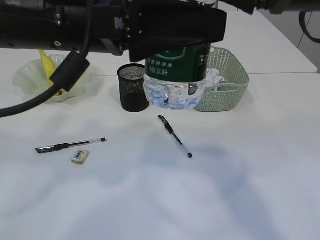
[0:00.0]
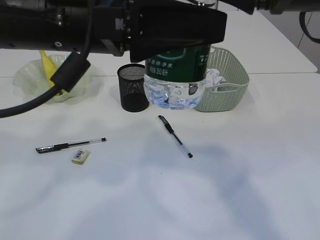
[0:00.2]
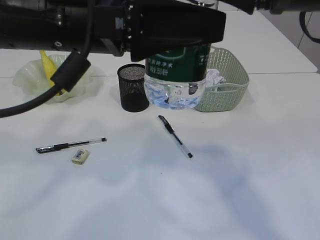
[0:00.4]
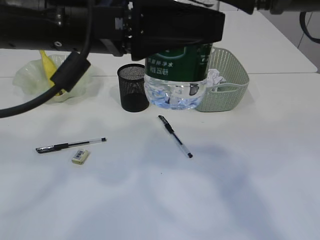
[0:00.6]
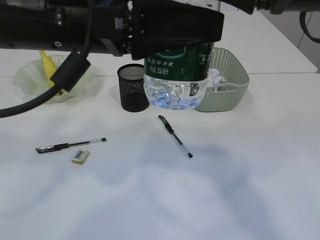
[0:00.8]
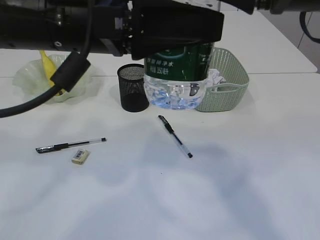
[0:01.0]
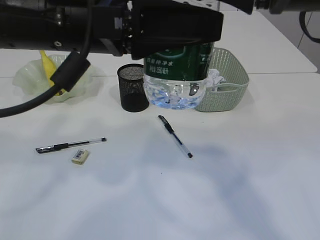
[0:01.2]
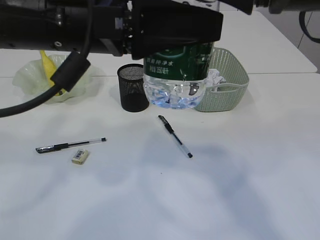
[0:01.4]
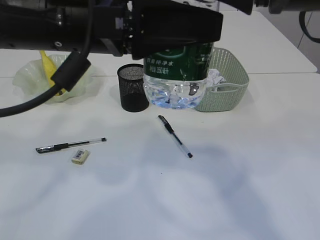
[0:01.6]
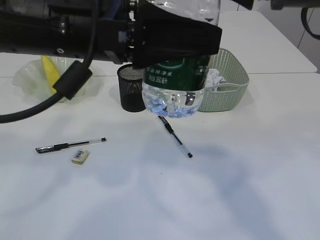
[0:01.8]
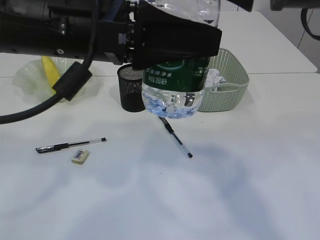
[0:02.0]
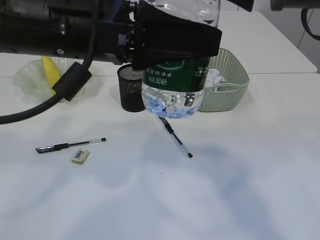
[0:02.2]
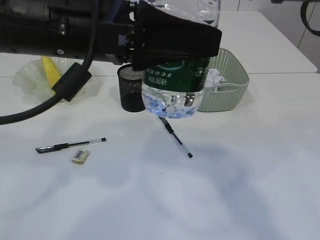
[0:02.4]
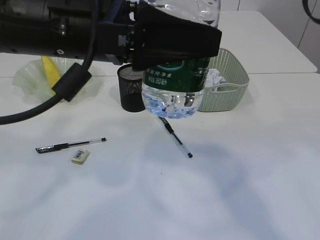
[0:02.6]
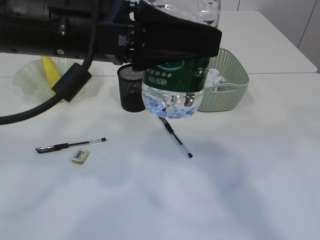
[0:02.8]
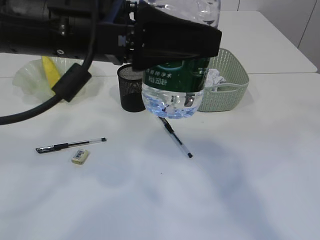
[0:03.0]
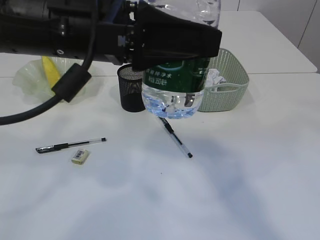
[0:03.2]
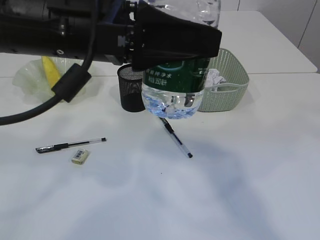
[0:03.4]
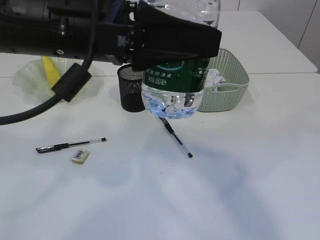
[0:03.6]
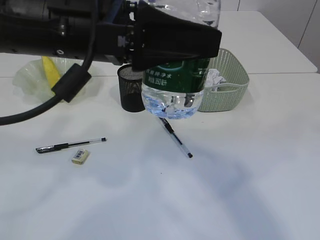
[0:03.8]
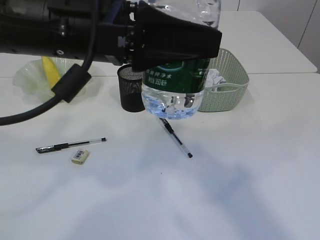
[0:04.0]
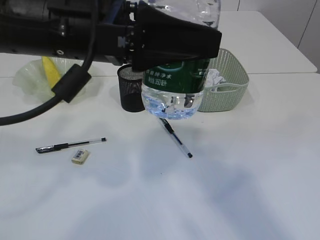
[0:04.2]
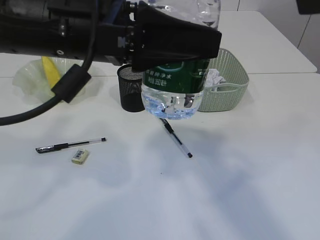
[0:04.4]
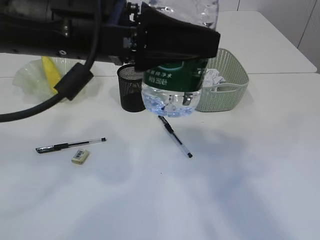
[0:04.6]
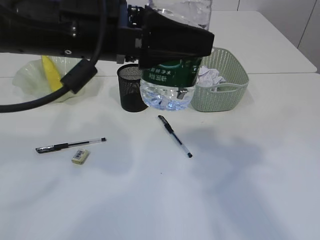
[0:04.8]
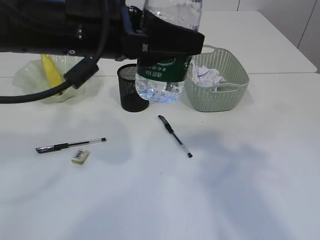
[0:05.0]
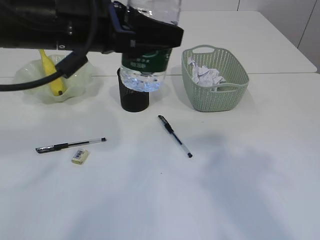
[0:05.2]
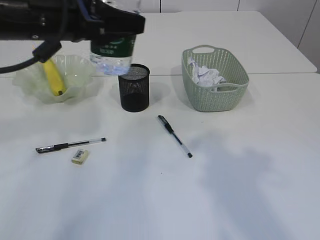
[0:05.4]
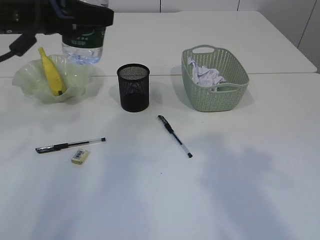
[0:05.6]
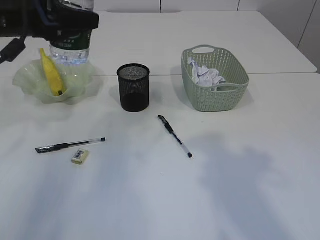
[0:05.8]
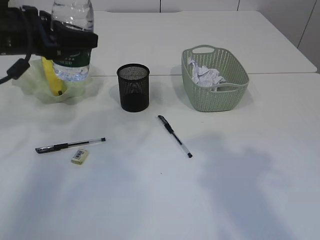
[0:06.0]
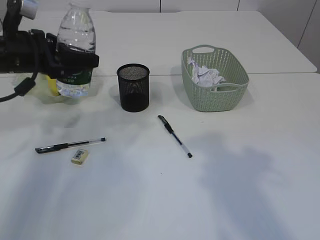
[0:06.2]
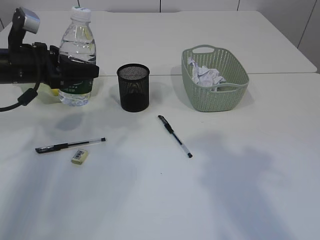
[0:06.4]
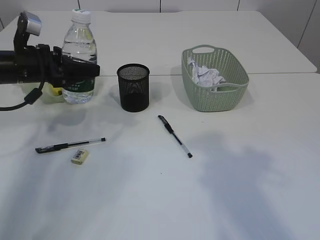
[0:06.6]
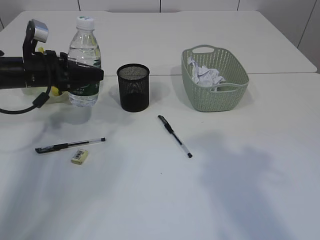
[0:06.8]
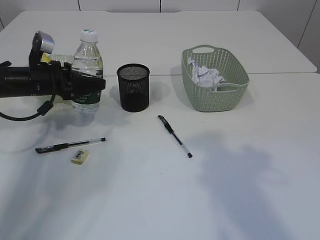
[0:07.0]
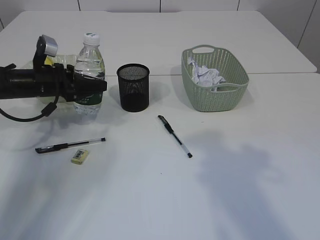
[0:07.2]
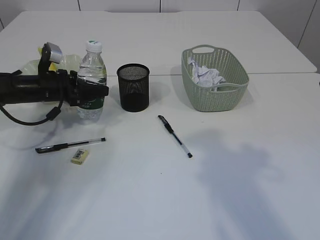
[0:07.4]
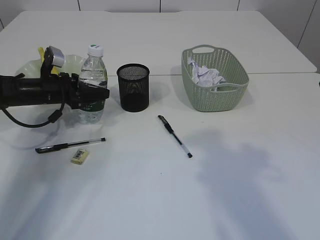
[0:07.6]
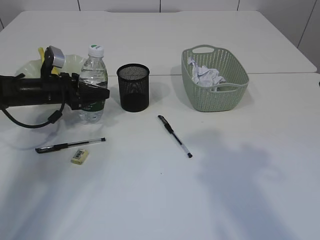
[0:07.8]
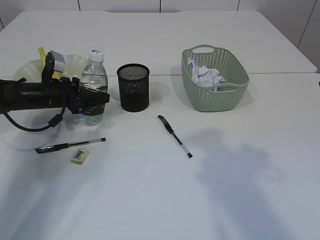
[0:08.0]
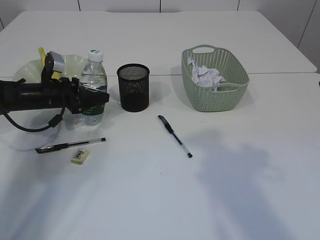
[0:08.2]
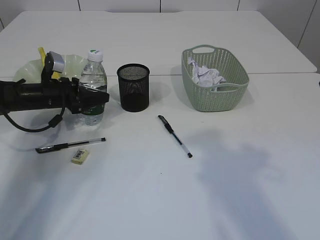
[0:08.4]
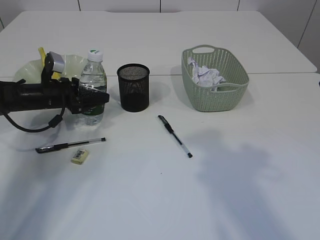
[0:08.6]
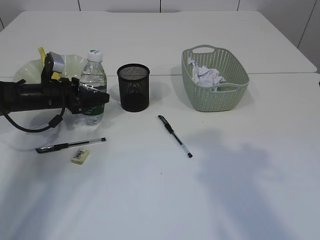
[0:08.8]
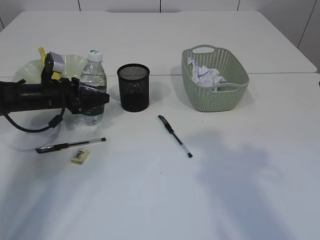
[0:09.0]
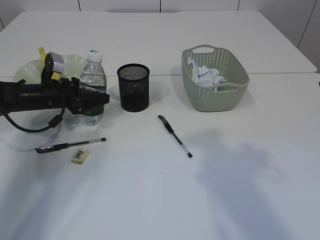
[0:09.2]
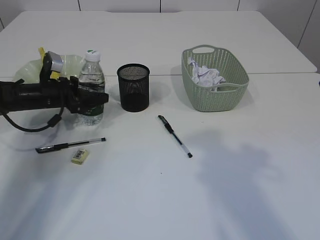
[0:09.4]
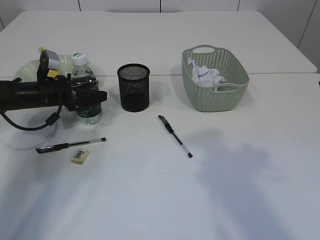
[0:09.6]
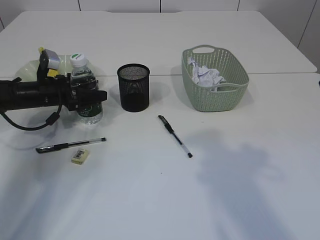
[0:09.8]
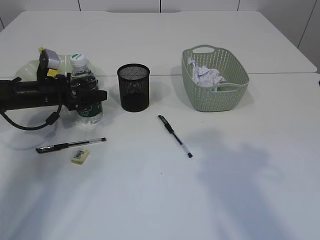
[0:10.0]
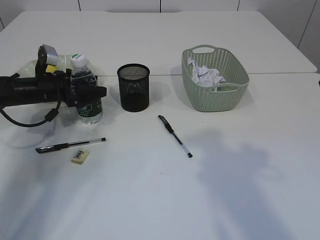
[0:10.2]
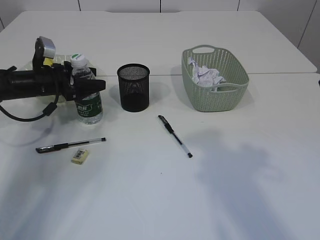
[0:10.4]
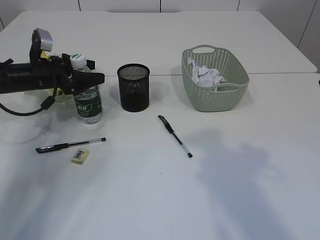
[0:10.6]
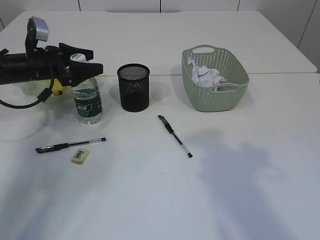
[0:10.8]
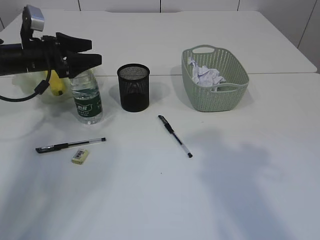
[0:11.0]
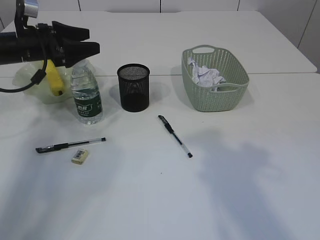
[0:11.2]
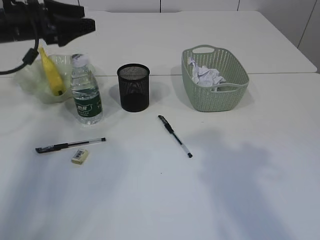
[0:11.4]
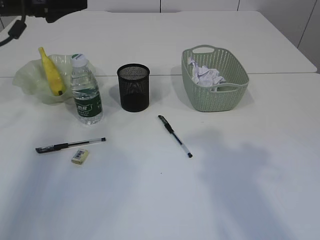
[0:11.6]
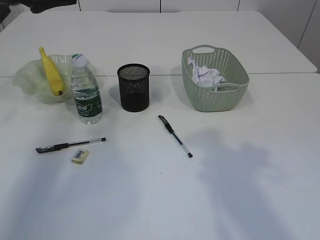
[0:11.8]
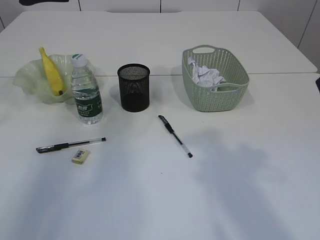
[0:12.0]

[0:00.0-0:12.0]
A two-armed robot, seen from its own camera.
Step, 0:05.2 to 0:11.2: Place the bottle.
0:00.0 to 0:01.6: The left gripper closes up.
0:01.6 to 0:03.0: There are only small adjustments of the grippers.
0:03.0 to 0:04.4: The right gripper is displaced to the right and backward by approximately 10 cm.
0:04.4 to 0:06.0: The right gripper goes some 5 cm downward. The left gripper shifts approximately 20 cm to the left and forward.
0:06.0 to 0:07.6: The left gripper shifts some 20 cm downward and forward.
0:07.6 to 0:10.4: The grippers stay close to where they were, moving slightly.
0:10.4 to 0:12.0: The left gripper travels upward by approximately 25 cm.

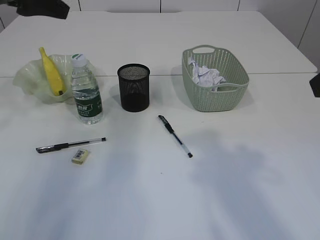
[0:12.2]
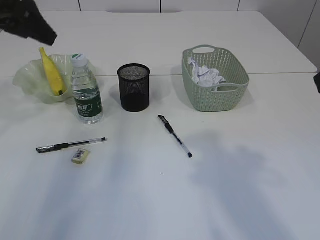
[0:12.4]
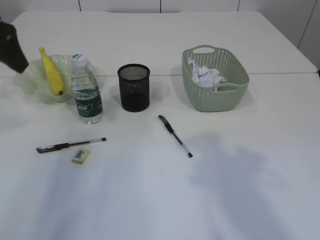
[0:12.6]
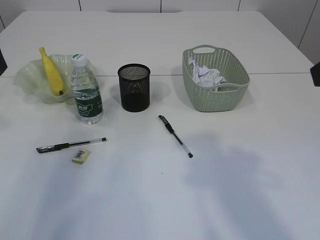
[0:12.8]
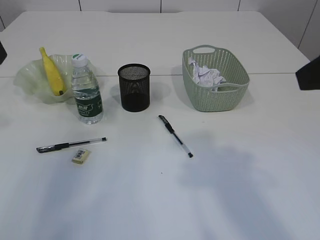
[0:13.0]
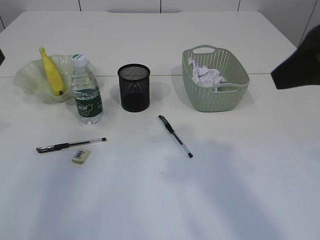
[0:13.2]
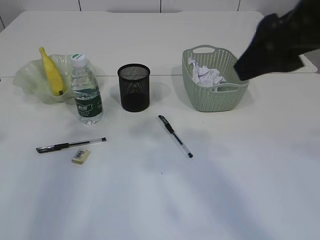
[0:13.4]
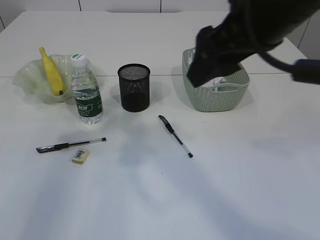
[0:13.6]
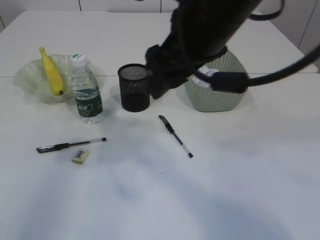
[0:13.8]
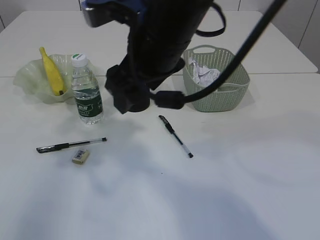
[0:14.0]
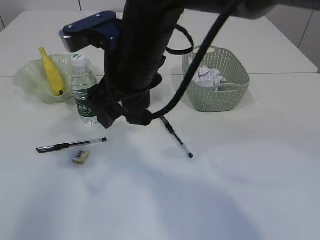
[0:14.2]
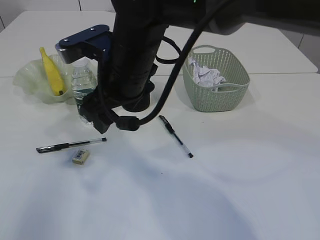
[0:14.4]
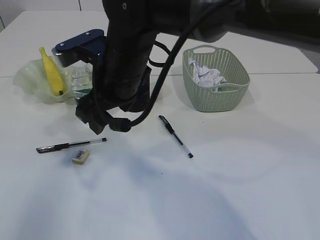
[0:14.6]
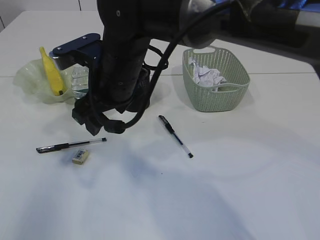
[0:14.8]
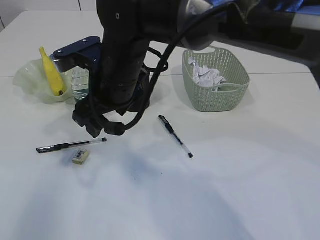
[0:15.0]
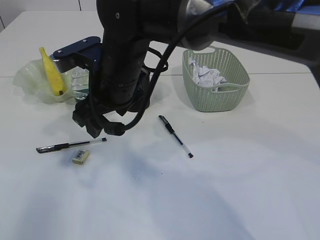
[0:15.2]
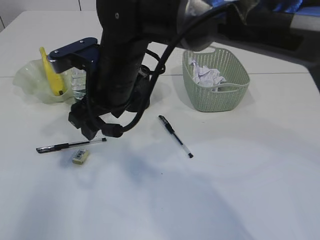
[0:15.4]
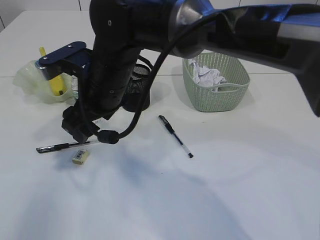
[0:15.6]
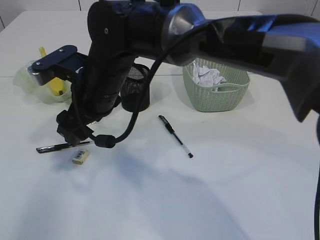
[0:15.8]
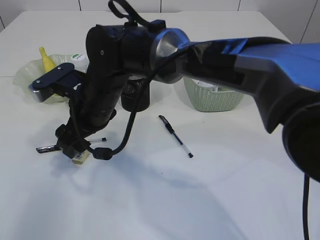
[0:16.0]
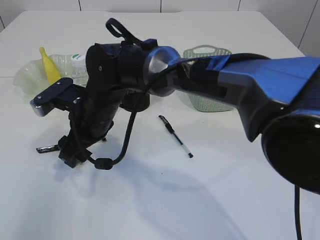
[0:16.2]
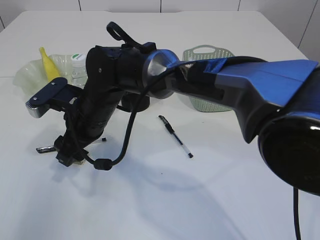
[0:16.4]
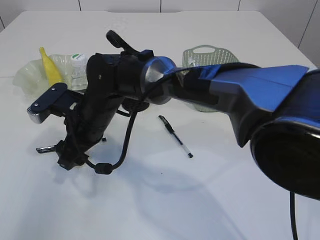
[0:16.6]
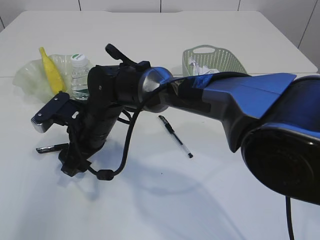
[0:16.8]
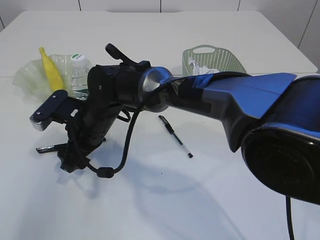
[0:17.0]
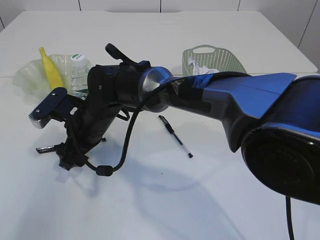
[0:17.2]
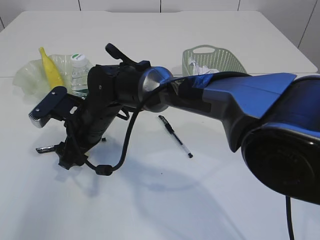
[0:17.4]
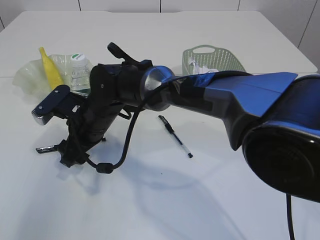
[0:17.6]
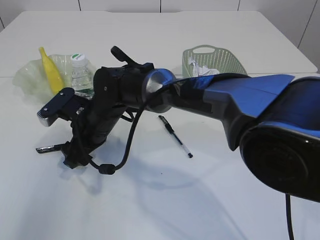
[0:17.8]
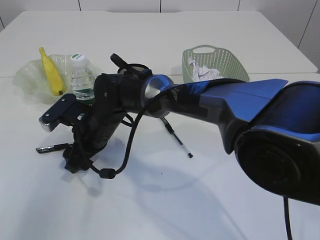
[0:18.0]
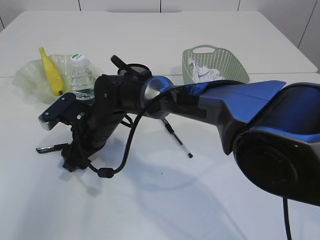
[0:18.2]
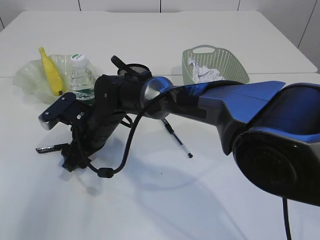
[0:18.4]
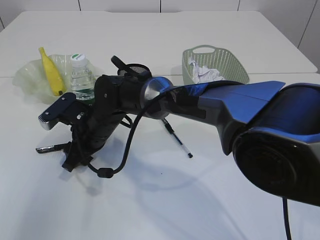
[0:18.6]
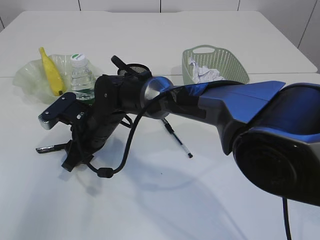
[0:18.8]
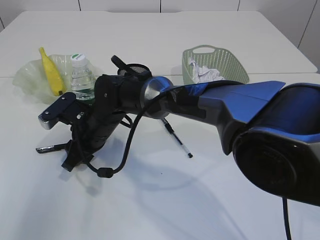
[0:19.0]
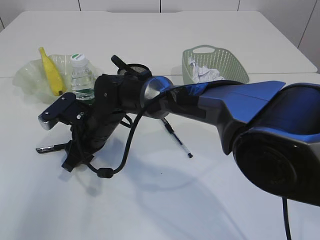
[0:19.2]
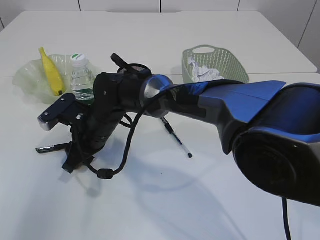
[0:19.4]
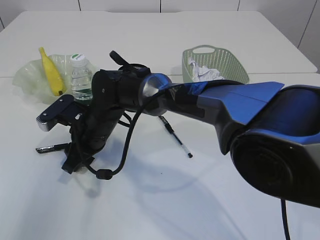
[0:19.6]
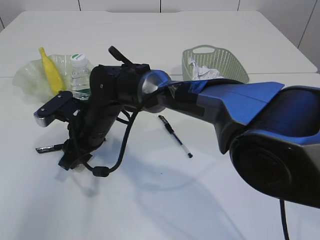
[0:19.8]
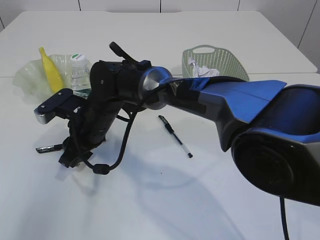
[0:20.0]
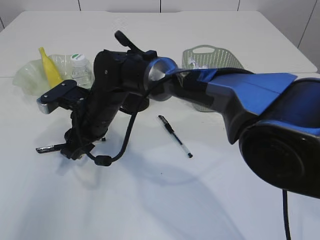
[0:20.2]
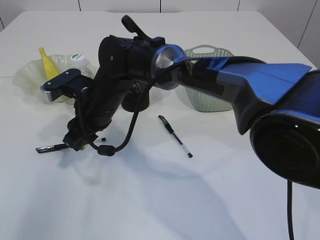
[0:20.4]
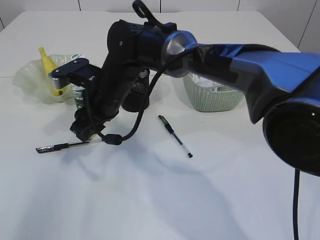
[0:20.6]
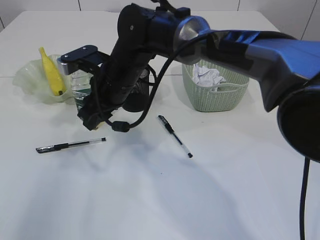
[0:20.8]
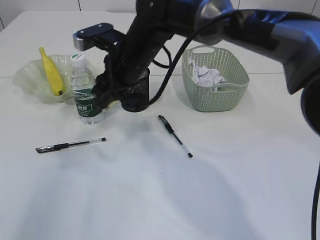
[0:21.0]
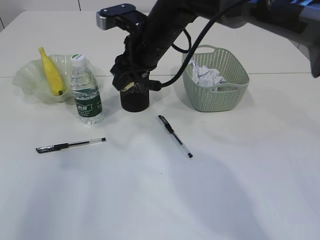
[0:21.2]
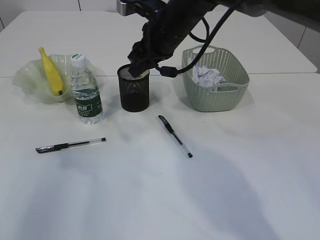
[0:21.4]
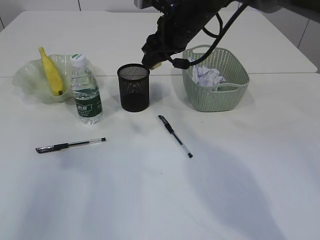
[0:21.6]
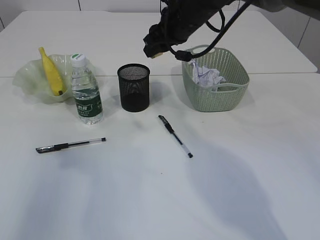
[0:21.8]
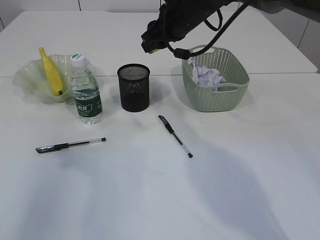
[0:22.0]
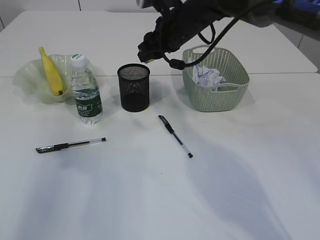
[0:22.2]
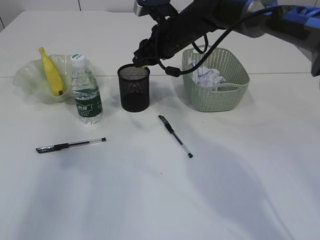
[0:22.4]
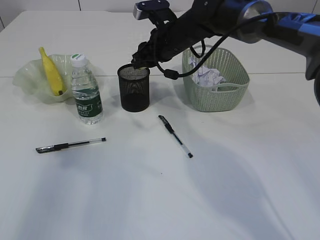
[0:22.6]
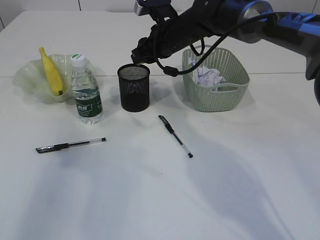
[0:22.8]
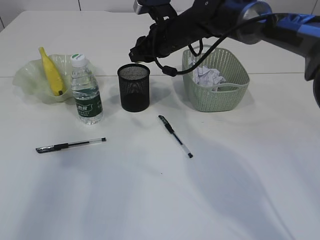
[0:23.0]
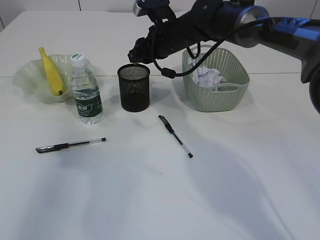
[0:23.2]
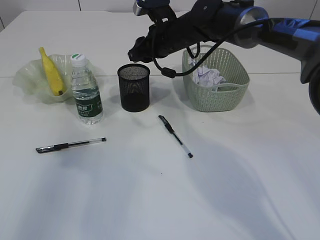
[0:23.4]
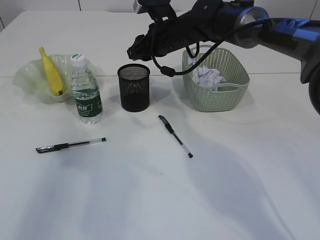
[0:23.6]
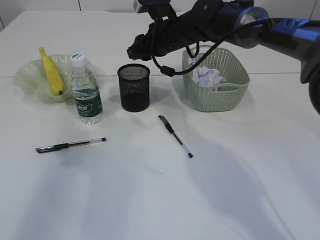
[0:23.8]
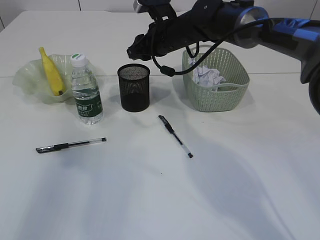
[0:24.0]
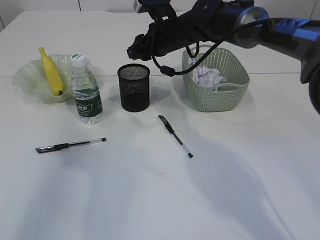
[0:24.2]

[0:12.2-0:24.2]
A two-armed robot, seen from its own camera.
Step, 0:12.2 to 0:20.4: Pick up the eraser.
0:12.2 to 0:13.8: The left gripper shifts about 15 cm backward. Meanwhile the right gripper moves to the left and forward, approximately 20 cm.
0:13.8 to 0:15.2: The right gripper goes some 15 cm to the left, downward and forward.
0:15.2 to 0:16.6: The right gripper travels downward and to the left by roughly 10 cm.
0:16.6 to 0:18.2: There are only small adjustments of the grippers.
0:18.2 to 0:19.8: The right gripper closes its fingers.
0:19.8 to 0:21.2: The right gripper heads upward, to the right and forward, covering approximately 20 cm.
0:21.2 to 0:22.6: The right gripper moves forward, some 5 cm.
0:22.6 to 0:24.2: The grippers move only a little.
